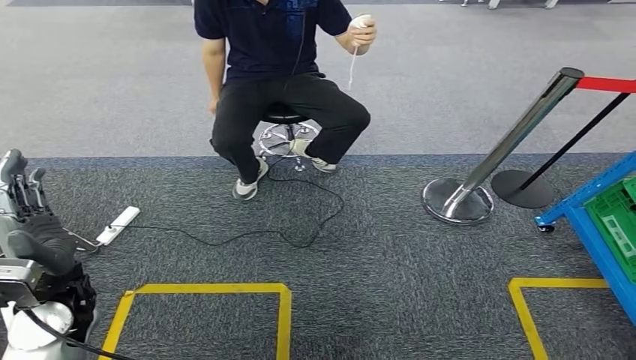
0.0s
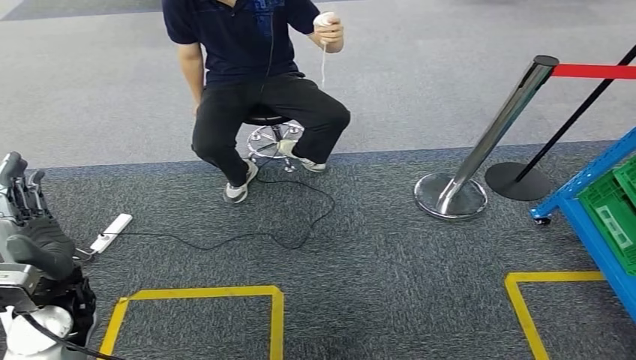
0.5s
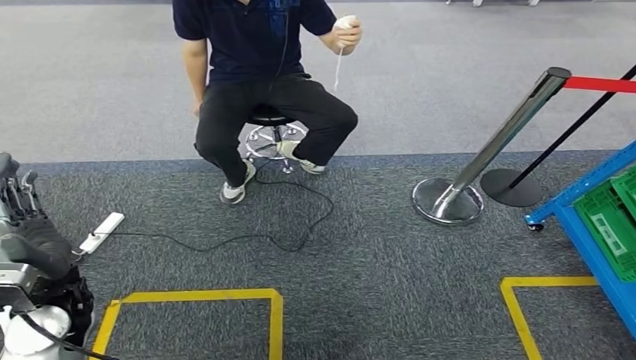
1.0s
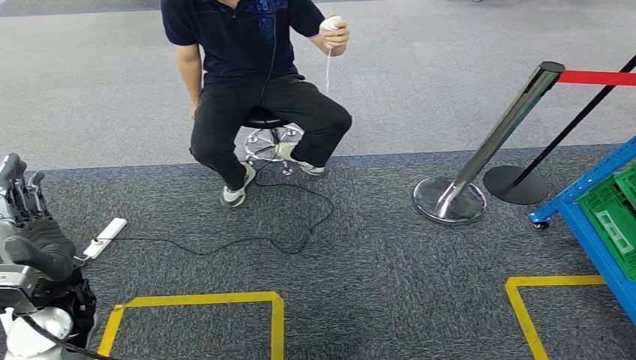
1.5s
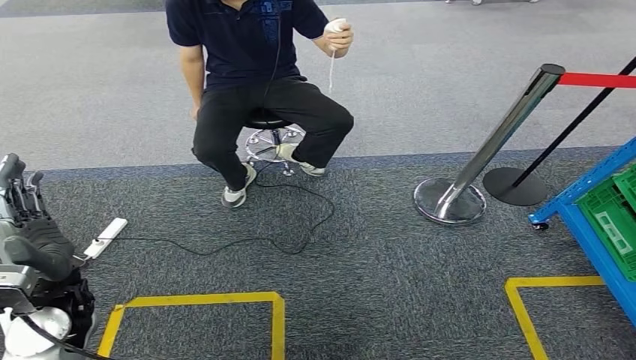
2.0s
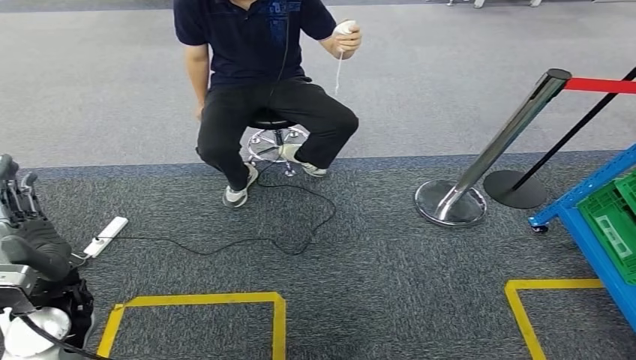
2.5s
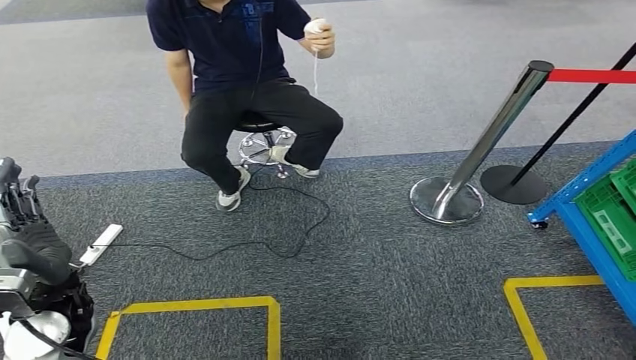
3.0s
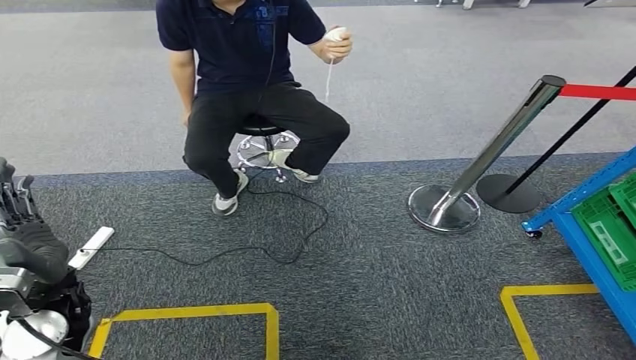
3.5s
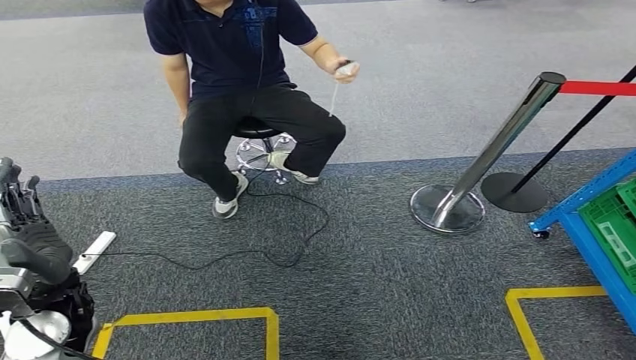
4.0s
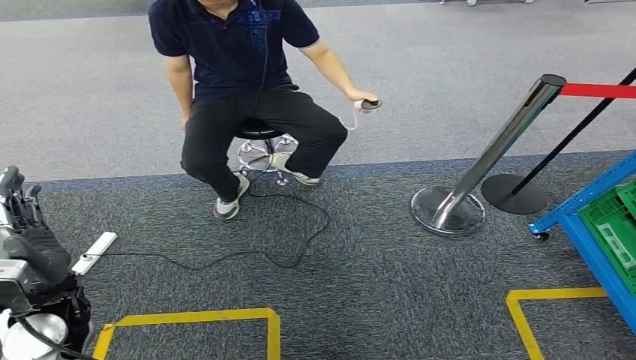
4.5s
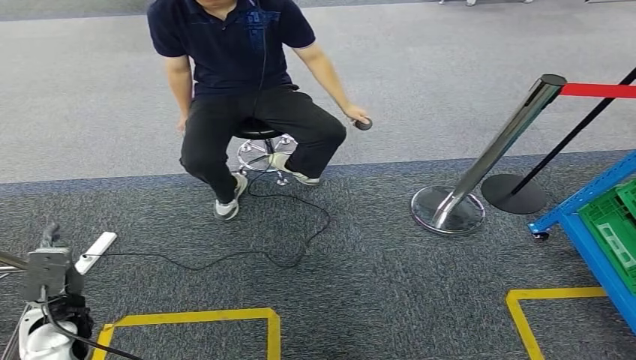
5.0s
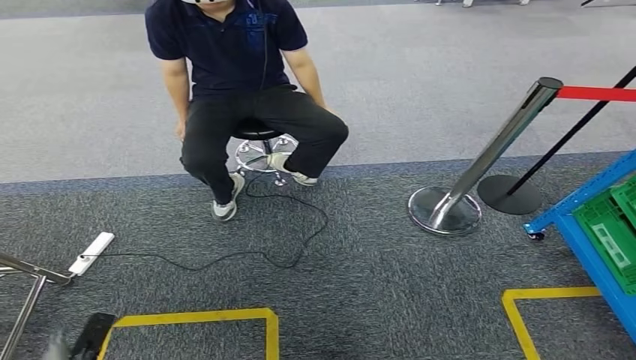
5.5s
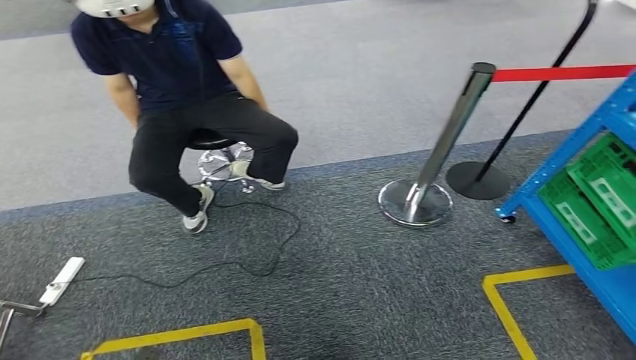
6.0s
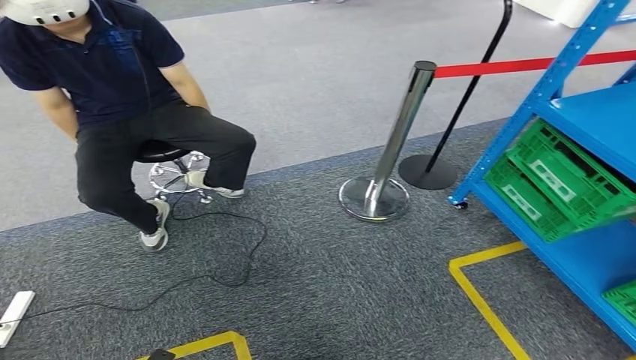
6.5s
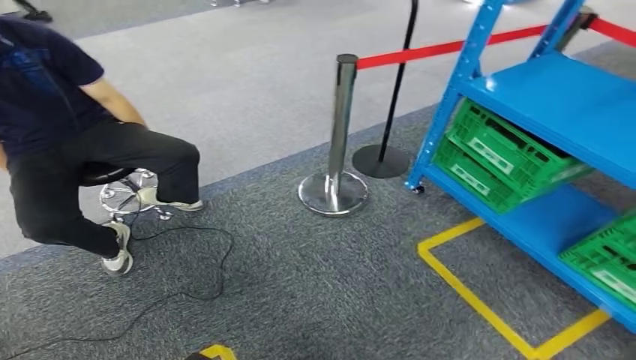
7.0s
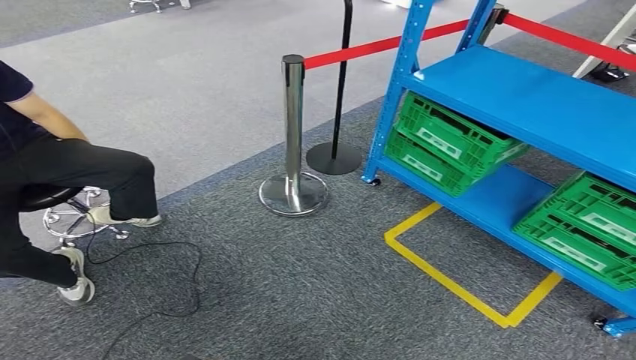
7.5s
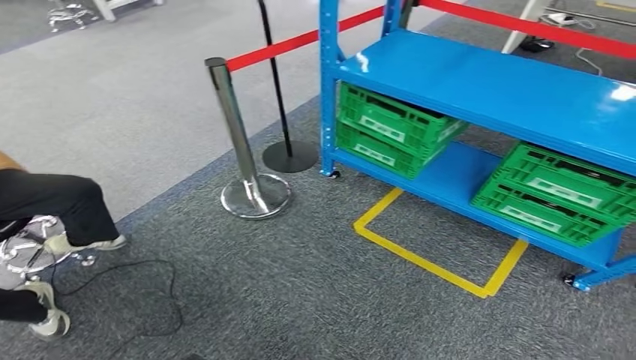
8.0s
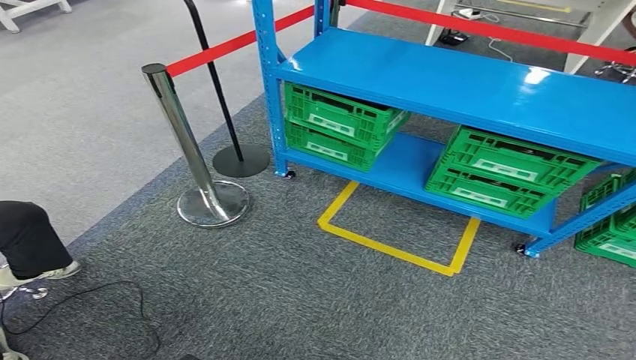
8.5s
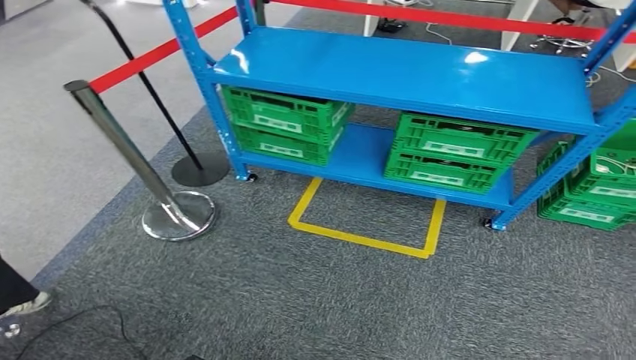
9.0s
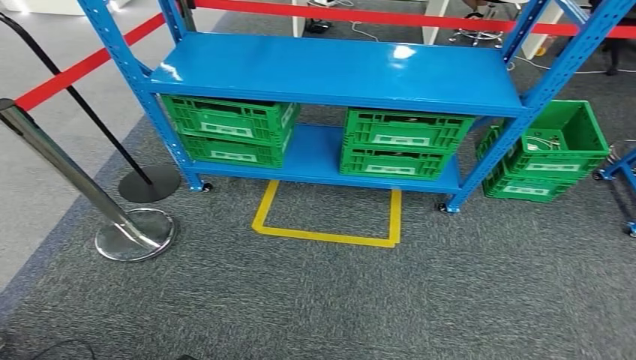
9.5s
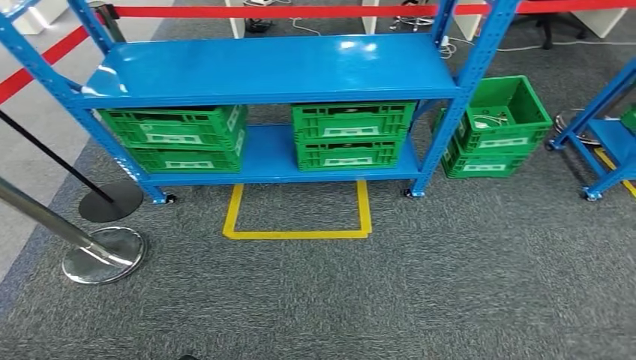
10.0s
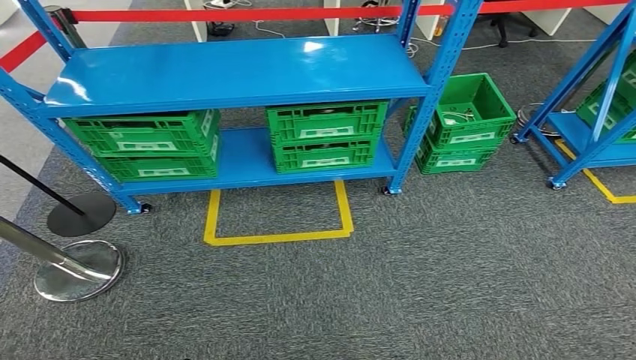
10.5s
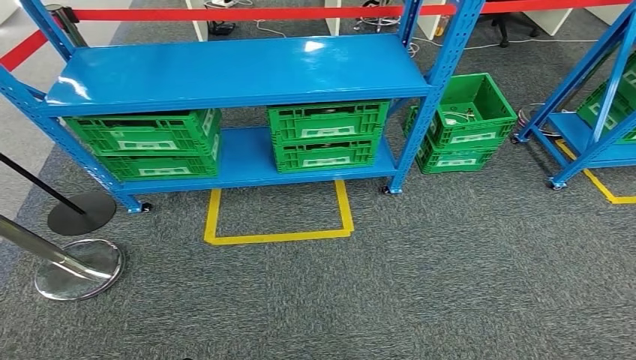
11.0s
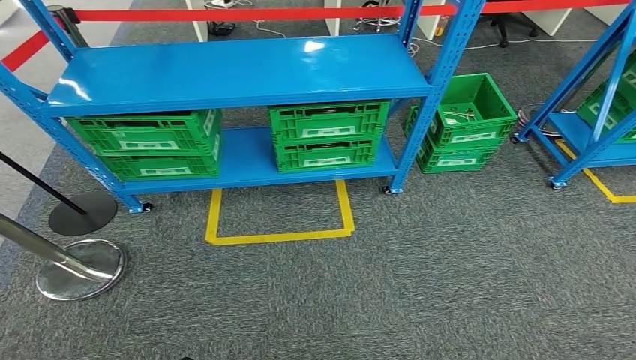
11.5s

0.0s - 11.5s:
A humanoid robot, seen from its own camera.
Step, 0.0s - 11.5s: Return to the initial position at the workbench.
0.0s - 4.0s: Both hands stay about where they are.
